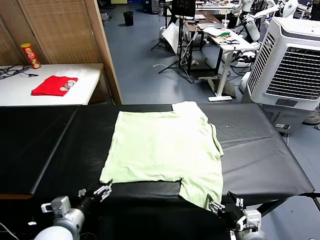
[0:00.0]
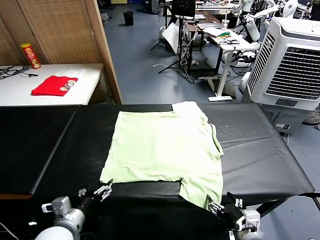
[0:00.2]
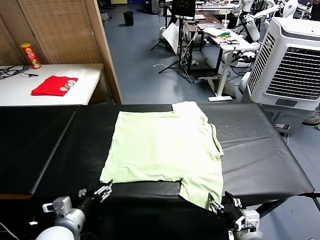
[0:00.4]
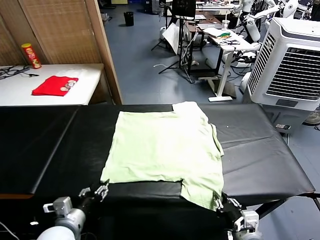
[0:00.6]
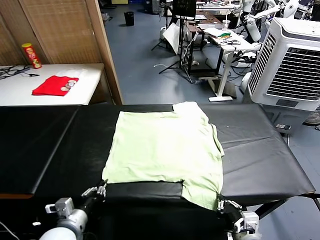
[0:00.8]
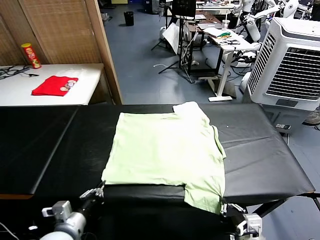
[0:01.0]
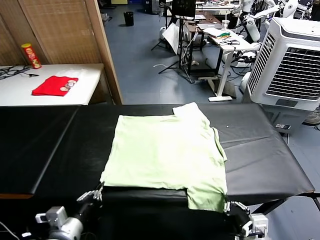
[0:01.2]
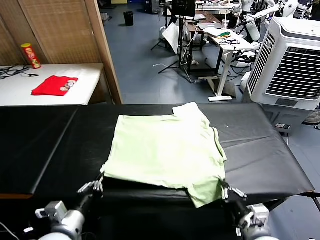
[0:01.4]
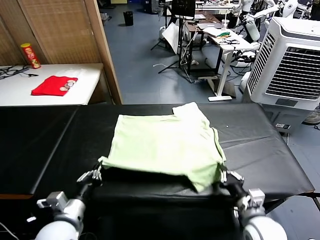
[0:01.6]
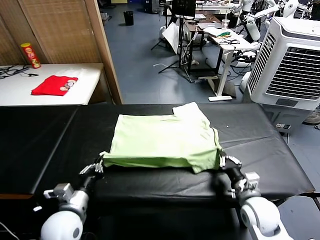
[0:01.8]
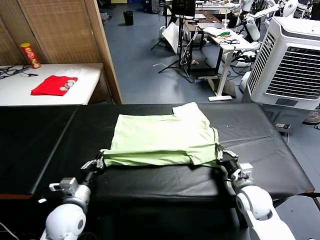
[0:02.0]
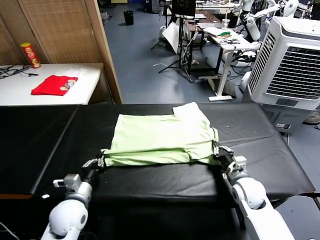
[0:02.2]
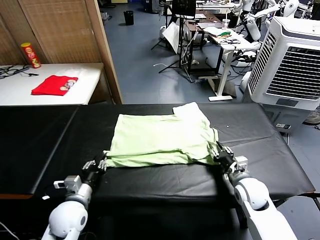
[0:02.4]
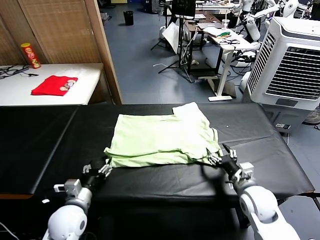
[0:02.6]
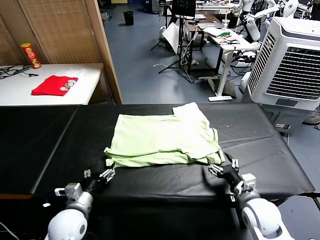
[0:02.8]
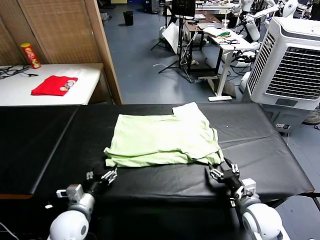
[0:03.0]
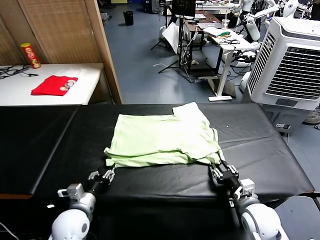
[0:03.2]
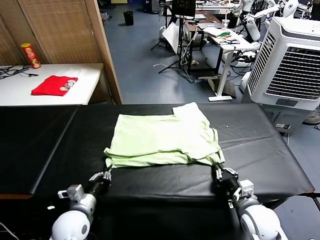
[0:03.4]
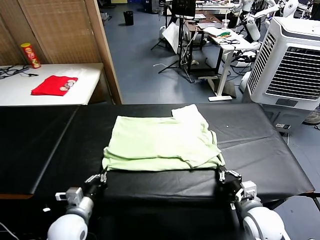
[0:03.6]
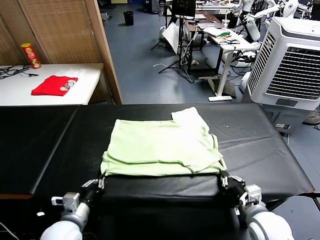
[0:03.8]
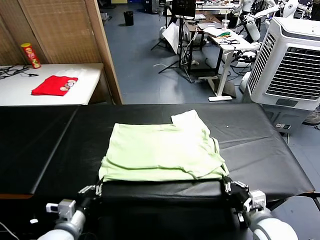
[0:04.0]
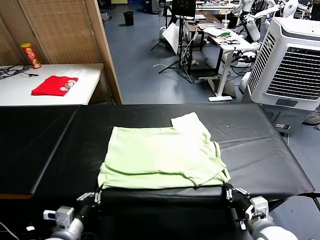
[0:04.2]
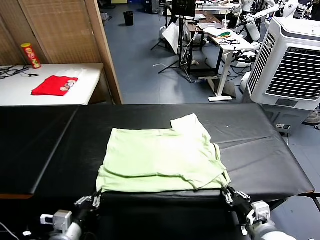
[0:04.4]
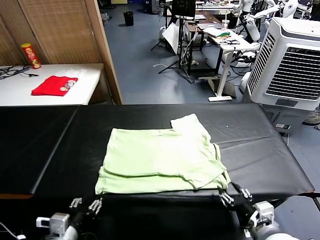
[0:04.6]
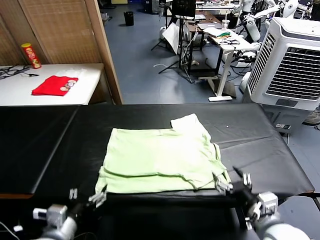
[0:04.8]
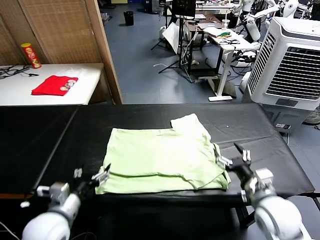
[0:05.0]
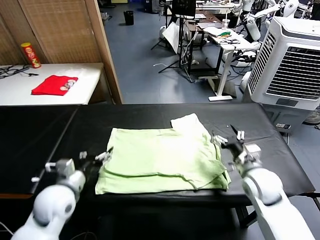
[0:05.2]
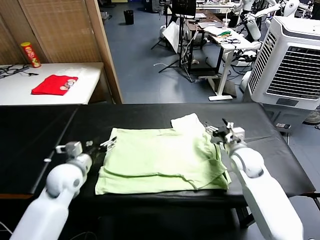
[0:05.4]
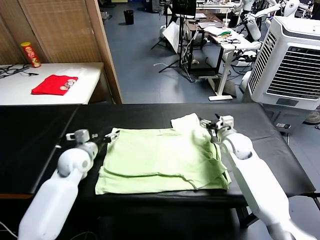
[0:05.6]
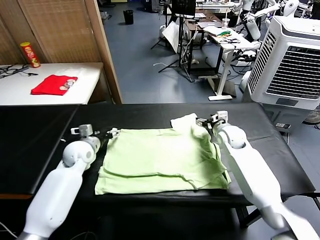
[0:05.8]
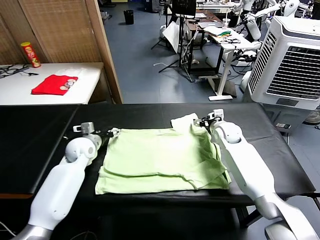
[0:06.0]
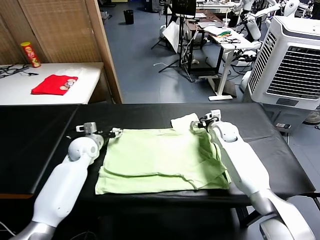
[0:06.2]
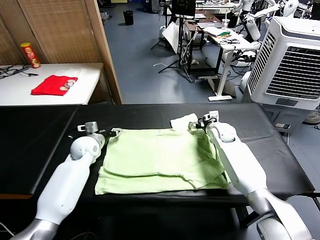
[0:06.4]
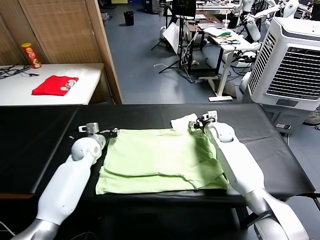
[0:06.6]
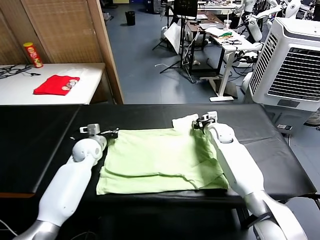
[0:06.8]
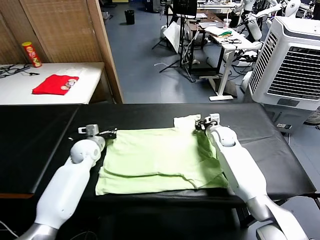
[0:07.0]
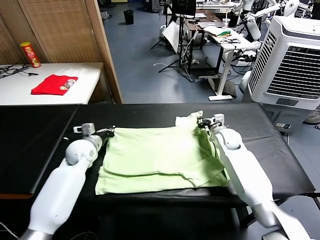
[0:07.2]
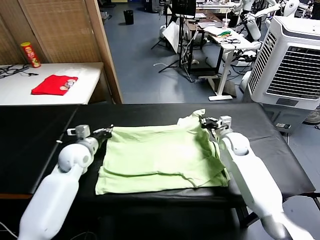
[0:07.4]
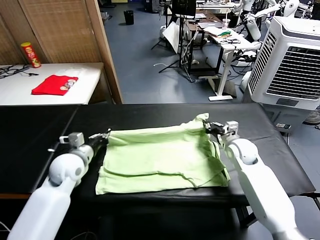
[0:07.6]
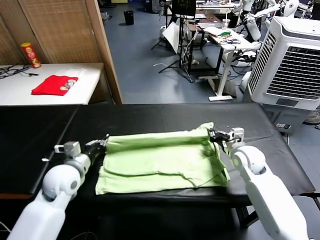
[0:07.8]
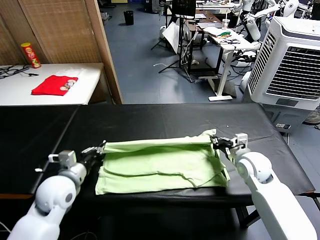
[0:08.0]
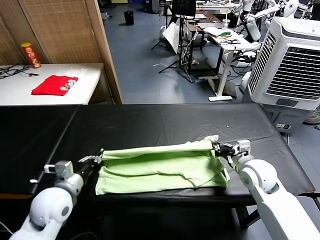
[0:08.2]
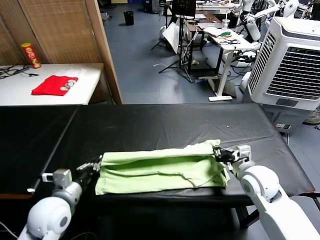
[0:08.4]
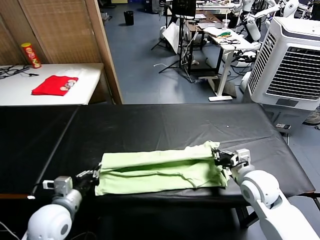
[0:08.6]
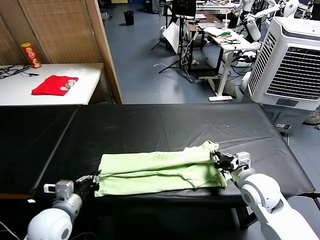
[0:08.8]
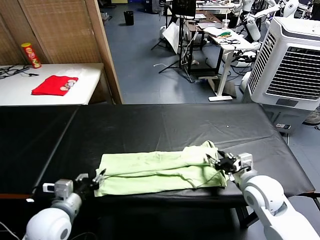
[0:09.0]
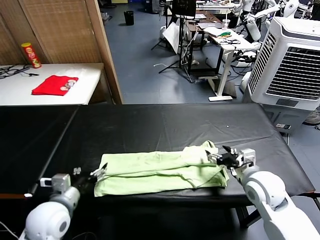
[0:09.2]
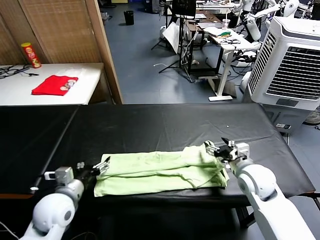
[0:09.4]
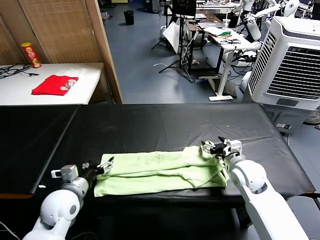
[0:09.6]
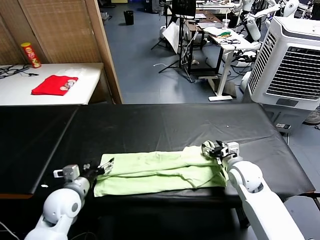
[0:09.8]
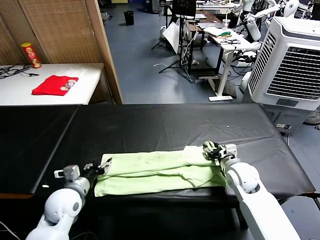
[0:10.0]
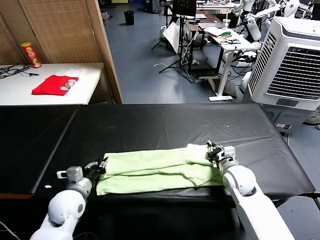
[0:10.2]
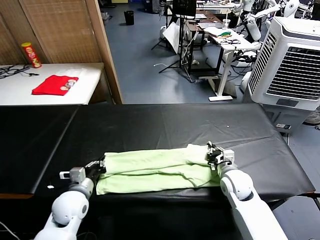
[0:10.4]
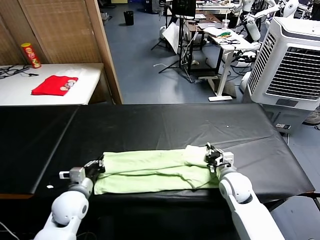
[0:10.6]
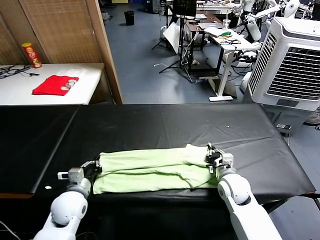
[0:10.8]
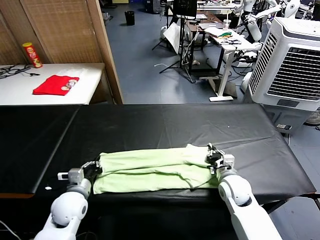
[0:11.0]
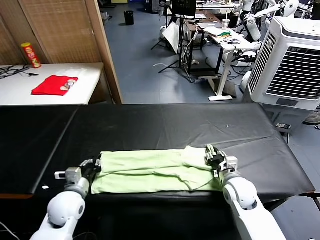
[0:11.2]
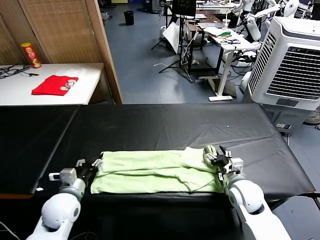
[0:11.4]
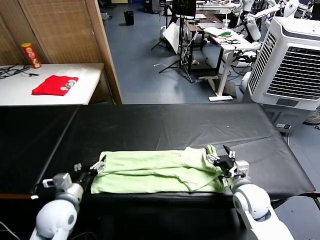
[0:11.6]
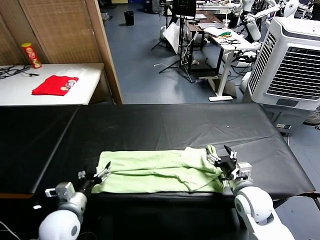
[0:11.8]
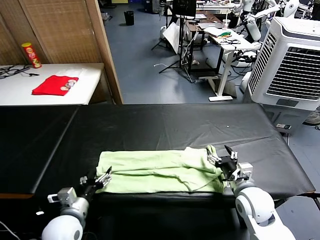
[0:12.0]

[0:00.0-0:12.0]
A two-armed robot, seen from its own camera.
Task of the whole recording: fold and organize the clothes.
Step, 0:00.0 to 0:00.8: use both grippers simultaneously to clamp the lower edge of the clothing fabric.
Step, 0:01.0 to 0:02.6: use both grippers to drag the lower edge of the fabric forward and fold it over the upper edge.
Step, 0:02.8 to 0:04.6: Drag the clothes downward with both gripper.
Step, 0:04.8 to 0:06.8: use both grippers simultaneously to clamp the upper edge of the clothing fabric.
Step, 0:07.2 to 0:09.0: use both grippers to drag the upper edge of the fabric backward and fold it over the lower edge.
0:01.6 to 0:03.0: The left gripper moves downward, some 5 cm, and opens up; the right gripper goes forward and returns, approximately 10 cm each way, and opens up.
0:03.0 to 0:04.4: Both grippers move backward and upward, about 10 cm. The right gripper closes and opens again. Meanwhile the left gripper closes its fingers.
0:04.4 to 0:06.0: The grippers both shift forward by roughly 35 cm. The right gripper opens. The left gripper opens its fingers.
0:06.0 to 0:07.6: The two grippers go roughly 10 cm backward. The left gripper closes its fingers. The right gripper closes.
0:07.6 to 0:09.0: The grippers both shift backward by some 15 cm. The right gripper opens up. Meanwhile the left gripper opens its fingers.
0:09.0 to 0:10.4: The left gripper moves forward and downward, about 10 cm, and closes its fingers. The right gripper is displaced downward and forward by about 10 cm, and closes.
0:10.4 to 0:12.0: The grippers both shift backward by some 5 cm. The left gripper opens its fingers; the right gripper opens its fingers.

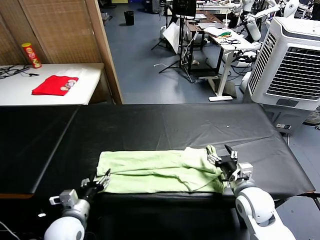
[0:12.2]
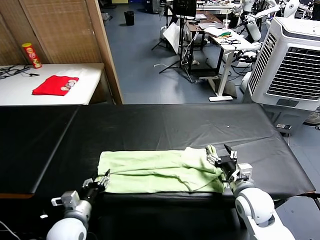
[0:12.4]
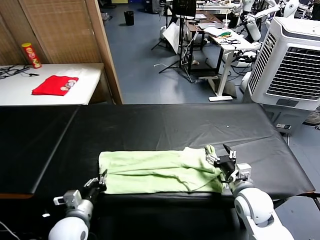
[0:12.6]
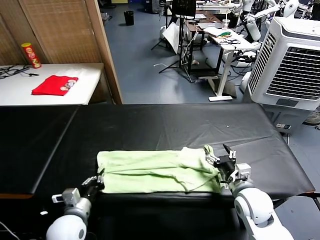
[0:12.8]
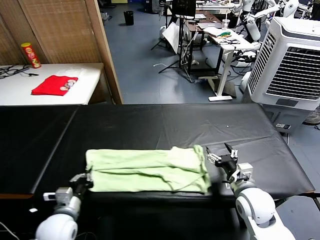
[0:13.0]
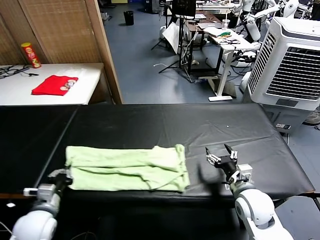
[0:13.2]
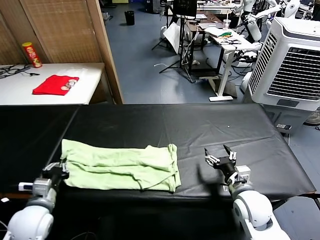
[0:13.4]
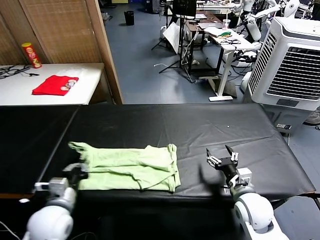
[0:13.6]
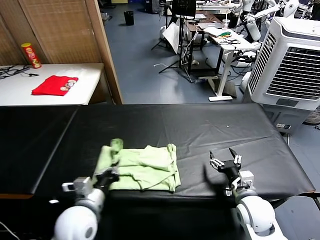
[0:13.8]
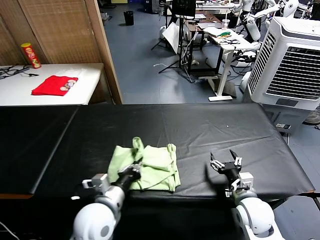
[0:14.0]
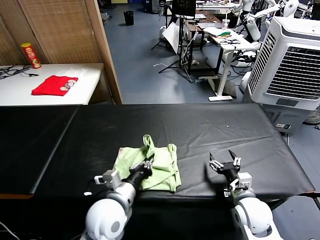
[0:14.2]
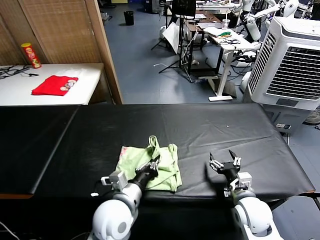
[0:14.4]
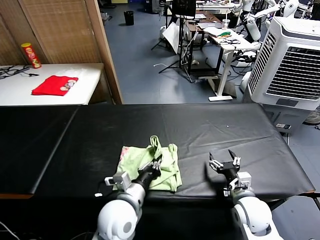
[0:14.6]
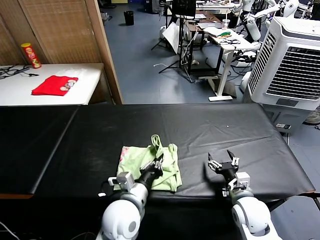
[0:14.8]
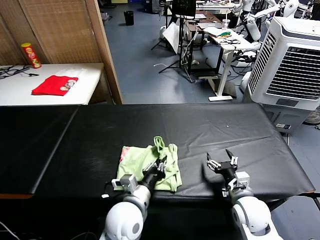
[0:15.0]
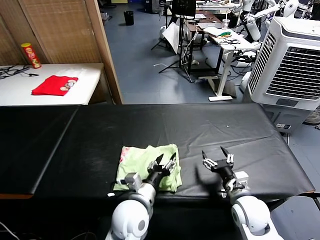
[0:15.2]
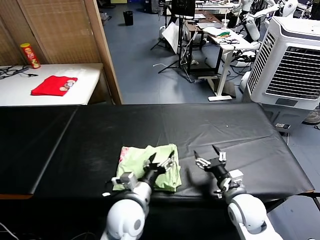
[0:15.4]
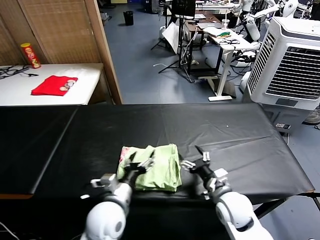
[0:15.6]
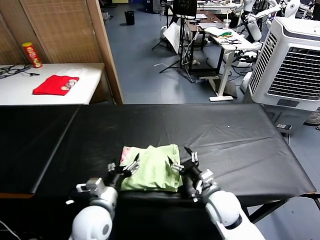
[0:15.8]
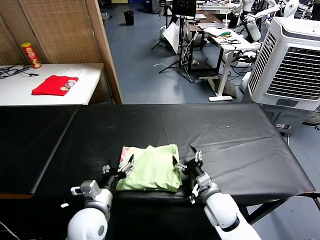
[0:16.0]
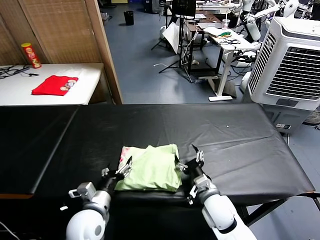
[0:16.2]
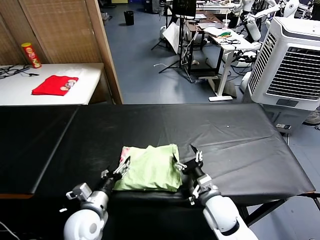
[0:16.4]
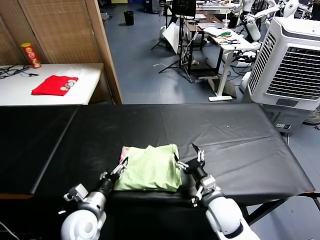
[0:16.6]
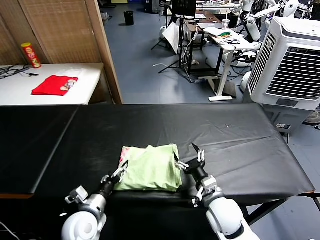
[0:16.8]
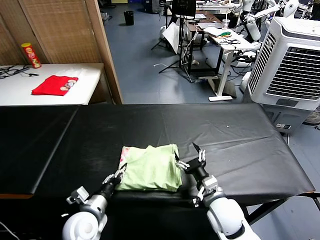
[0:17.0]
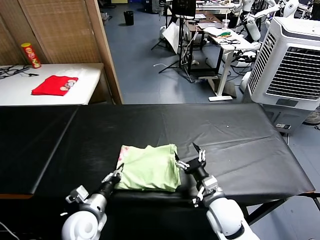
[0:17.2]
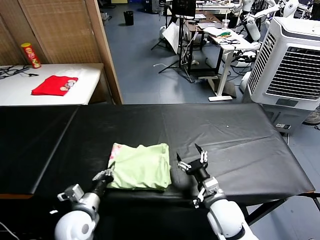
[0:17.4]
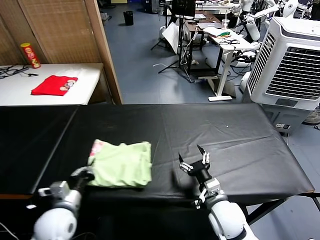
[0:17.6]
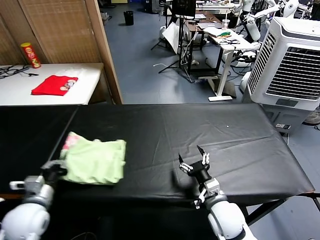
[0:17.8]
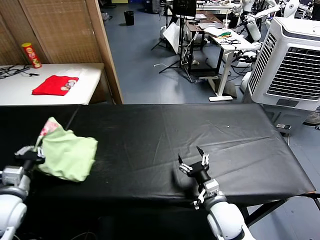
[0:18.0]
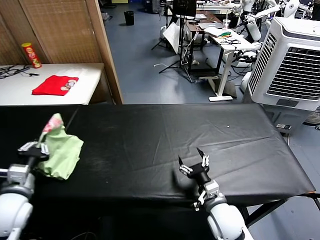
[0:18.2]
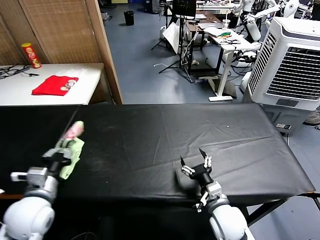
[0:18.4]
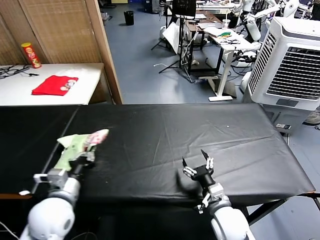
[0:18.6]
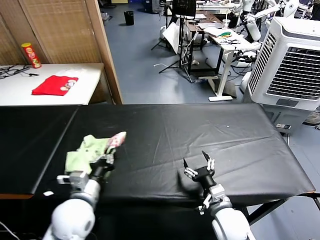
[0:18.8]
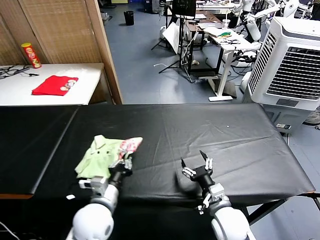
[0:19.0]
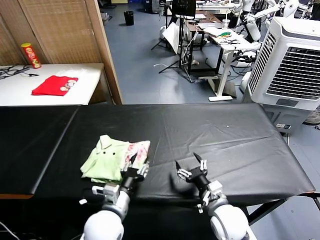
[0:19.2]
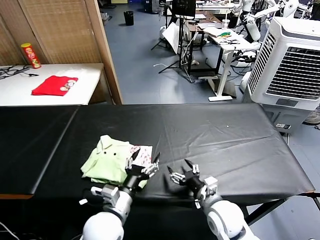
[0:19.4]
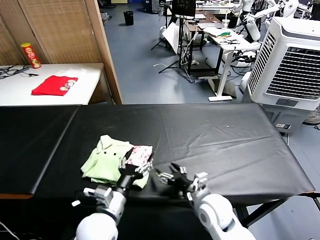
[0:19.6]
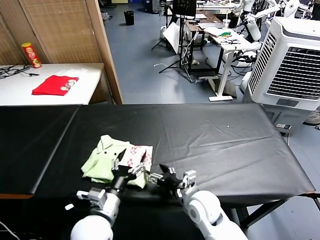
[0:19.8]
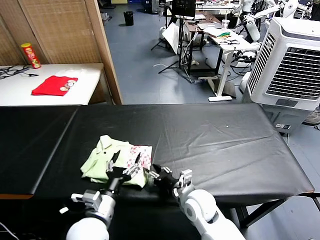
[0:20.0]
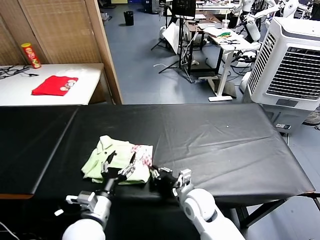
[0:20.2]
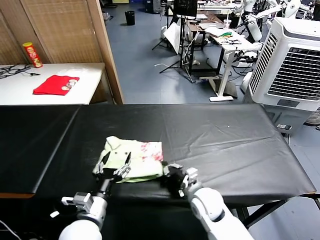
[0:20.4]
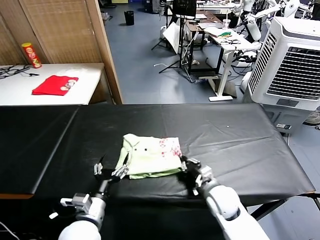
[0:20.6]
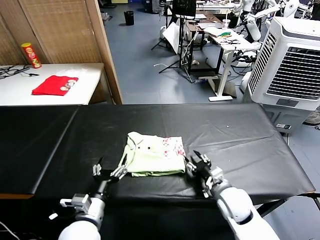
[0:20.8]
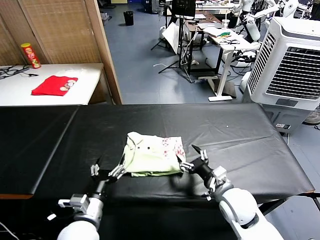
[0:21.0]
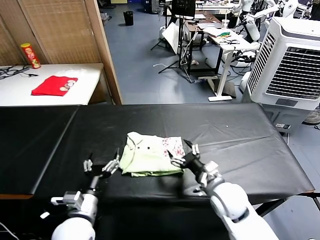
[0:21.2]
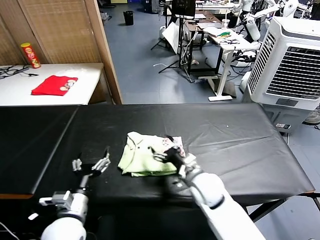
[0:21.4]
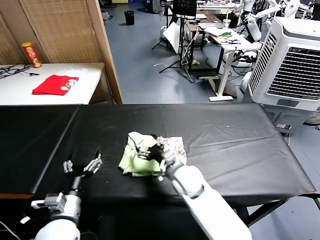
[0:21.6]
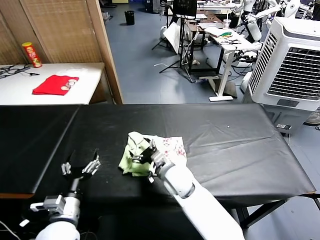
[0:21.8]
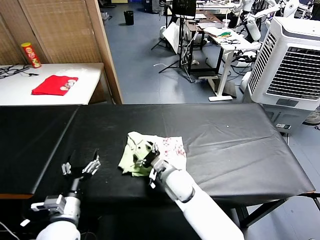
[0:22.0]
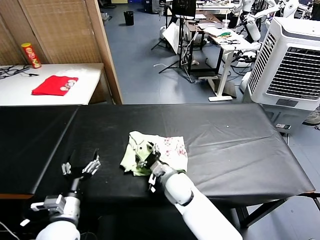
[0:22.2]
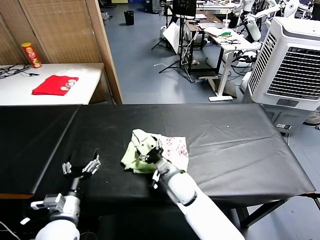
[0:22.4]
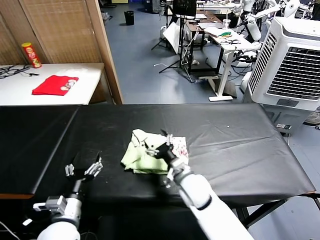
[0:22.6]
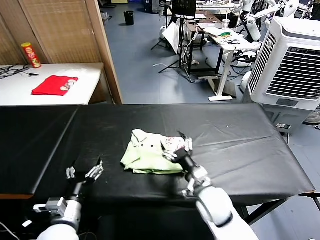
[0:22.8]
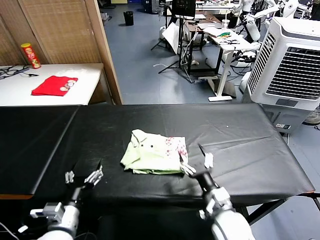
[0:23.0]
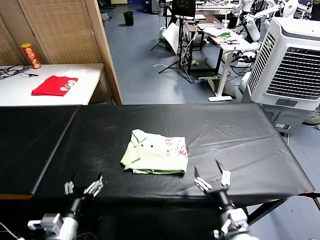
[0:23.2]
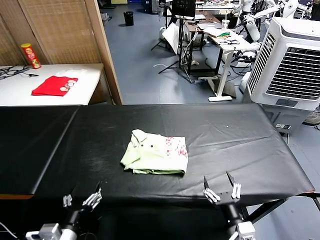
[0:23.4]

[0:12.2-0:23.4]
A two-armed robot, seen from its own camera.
Task of the whole recording: fold and organize the clothes.
Step, 0:12.8 to 0:15.2: use the left gripper to drag the left edge of the fabric to the left and folds it over the right edge.
Step, 0:15.4 to 0:19.2: Flip the folded clothes over with left gripper.
Step, 0:19.4 to 0:22.4: Drag the clothes to the center of the table.
0:12.2 to 0:13.8: The left gripper shifts some 10 cm upward and to the right, and closes its fingers.
0:13.8 to 0:15.4: The left gripper travels to the right by some 10 cm, and opens up.
0:15.4 to 0:17.0: The left gripper travels to the left and downward by roughly 15 cm, and closes up. Meanwhile the right gripper heads to the left, covering approximately 5 cm.
0:17.0 to 0:18.6: The left gripper is displaced upward by approximately 10 cm, travels to the left and back again, about 15 cm each way, and closes.
0:18.6 to 0:20.2: The left gripper is displaced to the right and downward by roughly 10 cm, and opens its fingers. The right gripper goes roughly 10 cm to the left and forward, and closes.
0:20.2 to 0:21.8: The left gripper travels to the left by roughly 5 cm. The right gripper goes approximately 10 cm to the left and forward, and opens its fingers.
0:21.8 to 0:23.4: The right gripper travels backward and to the right by approximately 30 cm, while the left gripper travels backward by some 5 cm.
